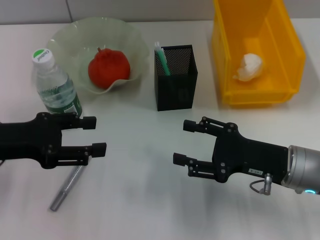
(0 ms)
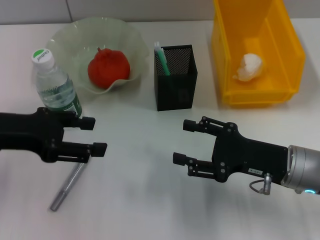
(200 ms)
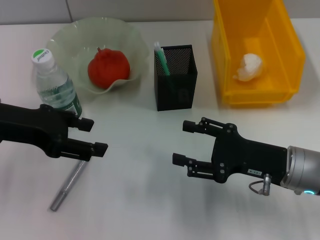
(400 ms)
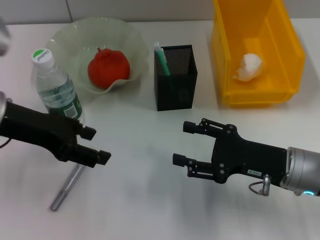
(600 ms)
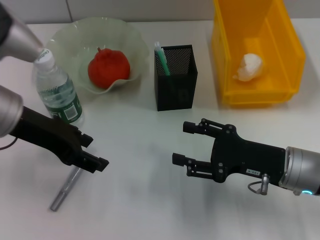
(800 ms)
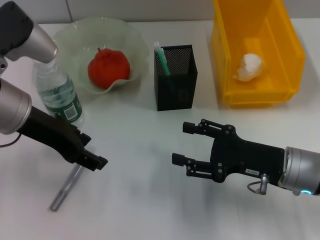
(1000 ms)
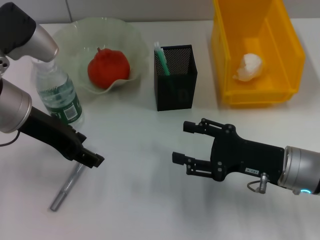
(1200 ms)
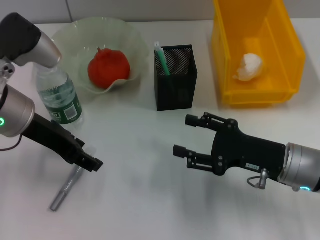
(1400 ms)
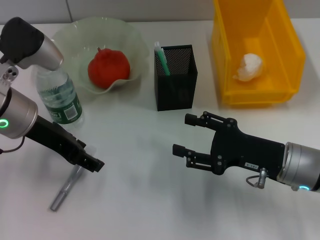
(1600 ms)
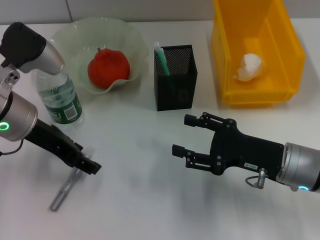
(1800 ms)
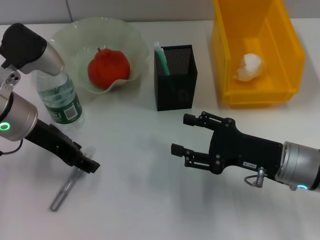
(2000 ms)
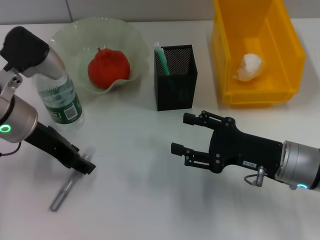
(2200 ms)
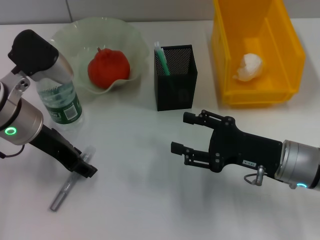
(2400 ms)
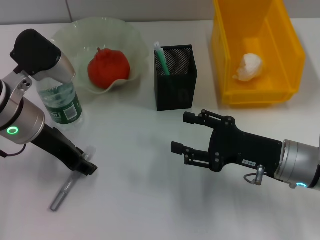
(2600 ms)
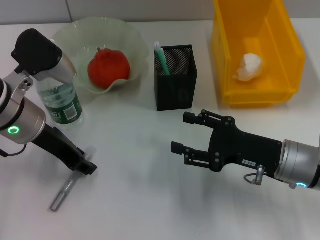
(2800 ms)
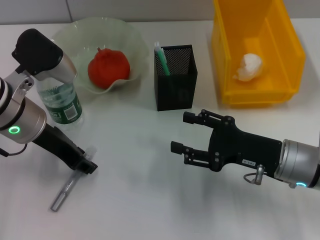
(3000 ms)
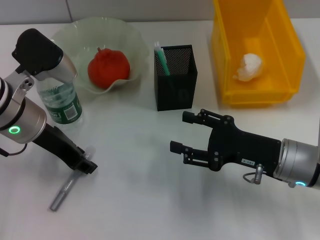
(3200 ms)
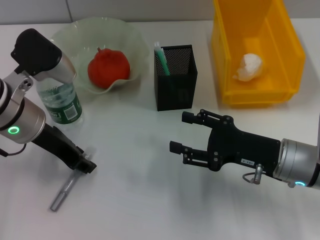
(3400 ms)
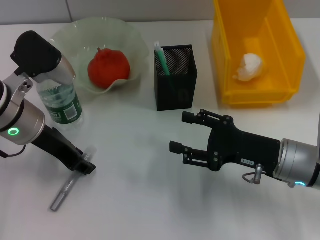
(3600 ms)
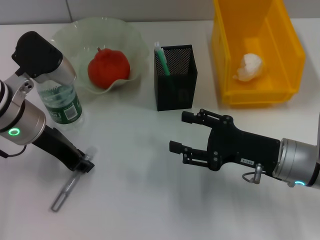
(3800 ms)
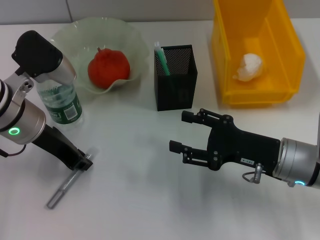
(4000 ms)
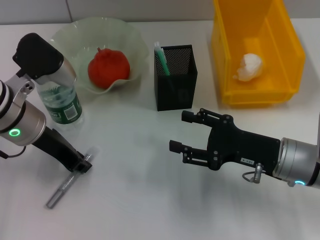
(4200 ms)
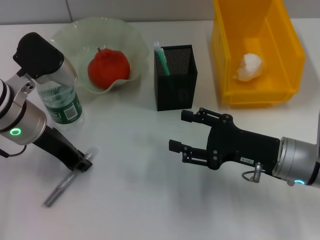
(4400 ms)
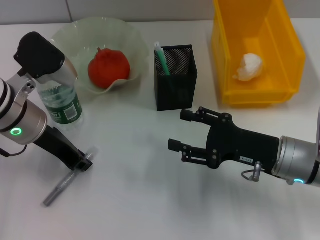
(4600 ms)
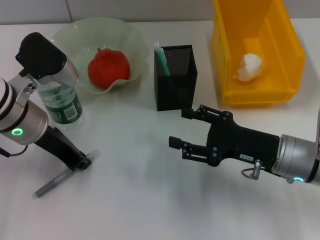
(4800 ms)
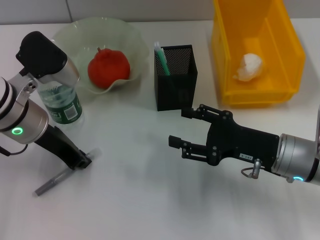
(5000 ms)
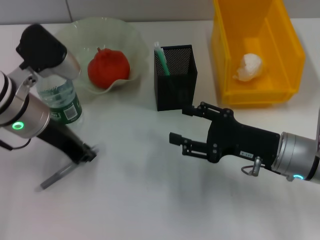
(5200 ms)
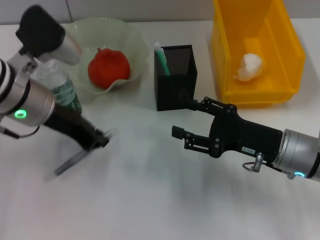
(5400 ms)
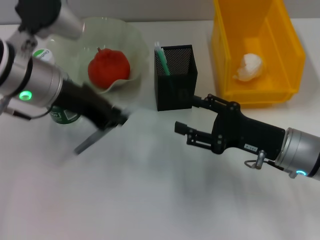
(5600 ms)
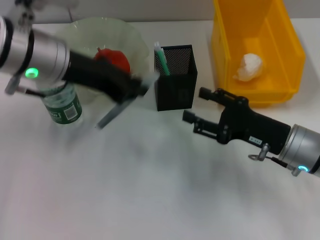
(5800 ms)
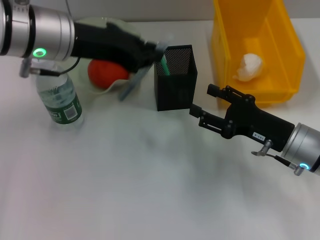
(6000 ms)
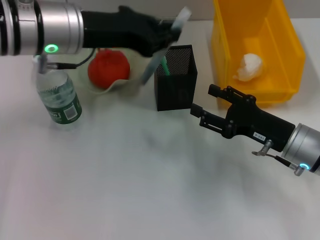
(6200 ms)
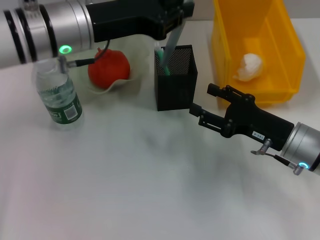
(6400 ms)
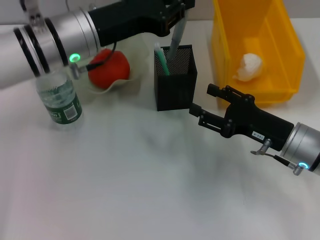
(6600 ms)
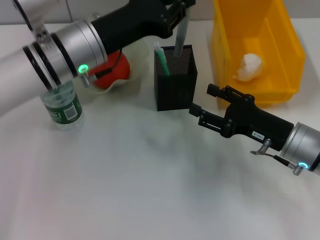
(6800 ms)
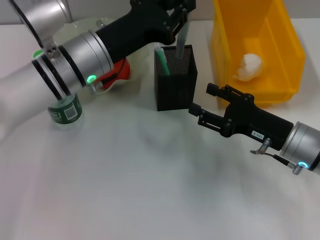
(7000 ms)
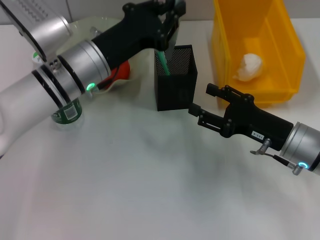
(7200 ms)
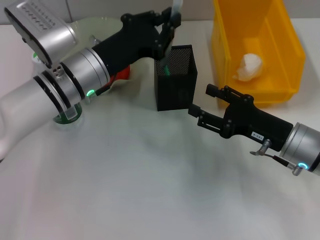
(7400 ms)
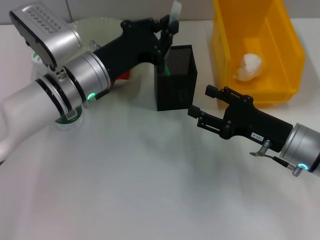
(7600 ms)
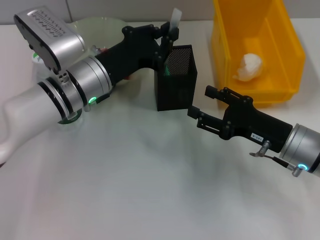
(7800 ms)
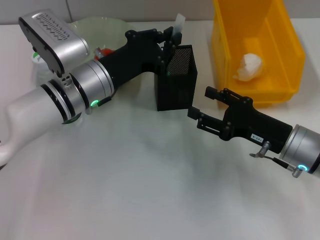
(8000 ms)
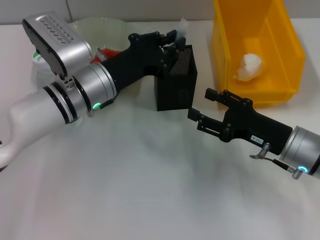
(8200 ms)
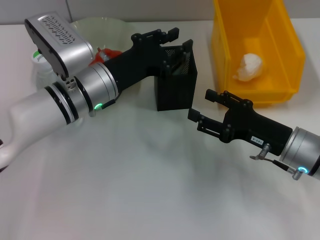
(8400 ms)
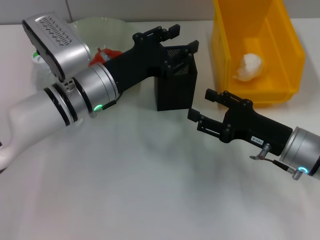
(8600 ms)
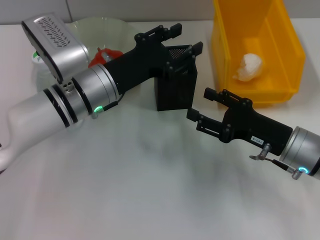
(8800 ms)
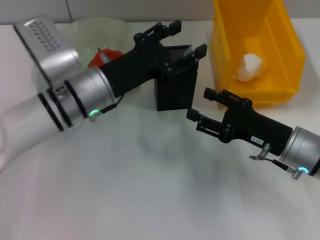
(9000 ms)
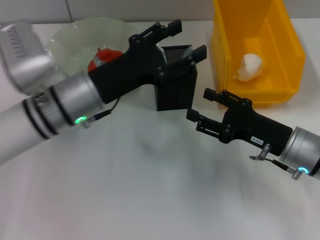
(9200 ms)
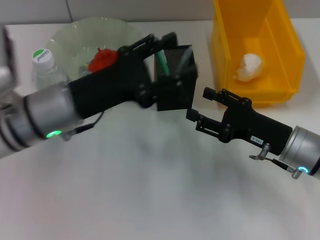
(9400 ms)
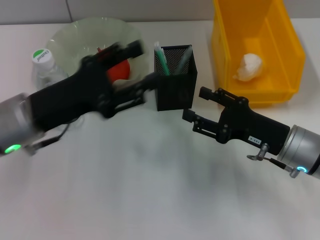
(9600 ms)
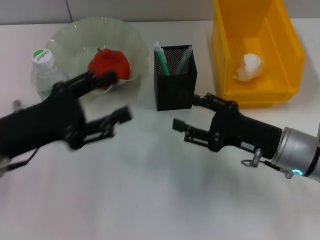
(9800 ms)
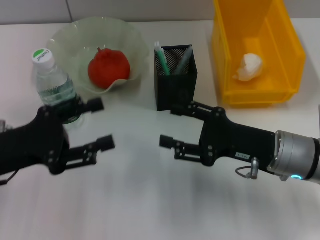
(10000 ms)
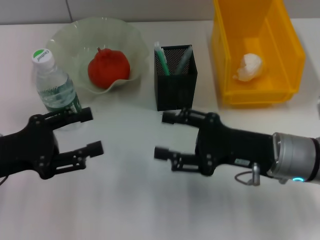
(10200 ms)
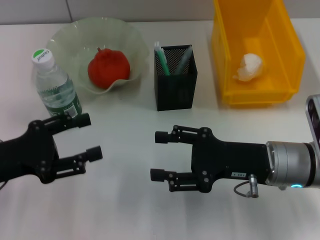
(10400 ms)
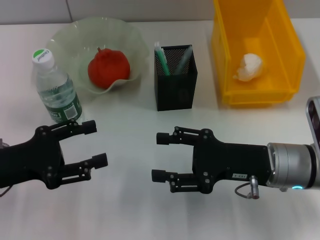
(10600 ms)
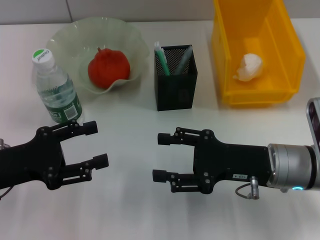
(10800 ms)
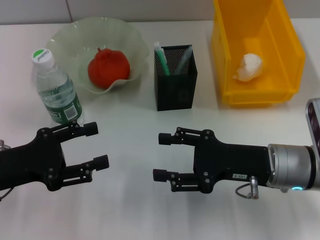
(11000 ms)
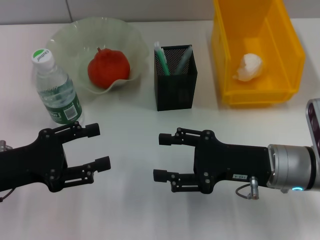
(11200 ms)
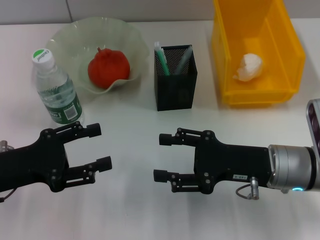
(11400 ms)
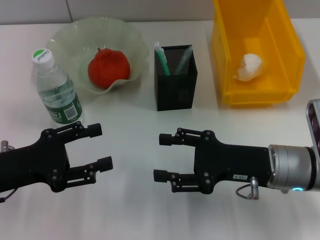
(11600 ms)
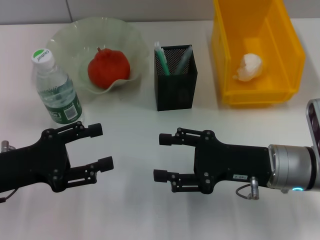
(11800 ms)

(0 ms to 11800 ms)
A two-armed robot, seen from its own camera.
Step, 0 ms - 4800 ms: Grab the gray glue with the left hand.
Step, 5000 ms - 8600 ms: Place the gray glue into the pen holder with the left hand.
0 ms - 1400 ms: The left gripper shifts some 10 cm to the right and forward.
1400 ms - 3000 ms: The grippers move only a little.
3000 ms - 4400 ms: The left gripper closes up.
4400 ms - 6000 ms: The left gripper goes about 10 cm upward.
6000 ms - 7400 ms: The left gripper moves downward, roughly 10 cm.
7400 ms - 8800 ms: The left gripper opens its fingers.
8800 ms - 10400 ms: The left gripper shifts about 20 cm to the left and backward, and opens up.
10400 ms - 11800 ms: Both grippers stay about where they are.

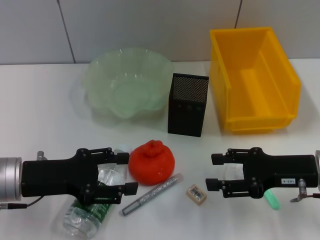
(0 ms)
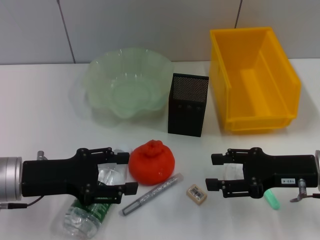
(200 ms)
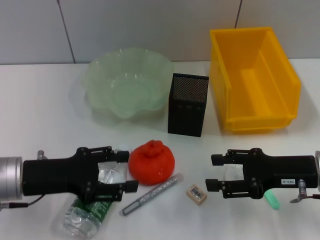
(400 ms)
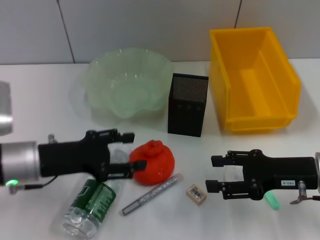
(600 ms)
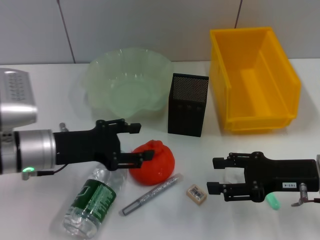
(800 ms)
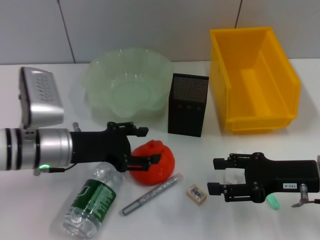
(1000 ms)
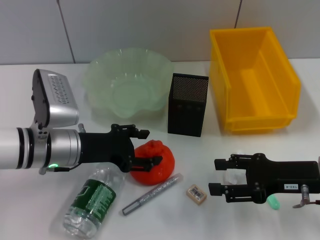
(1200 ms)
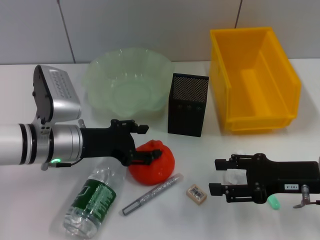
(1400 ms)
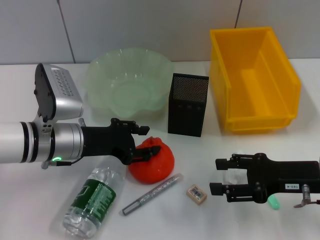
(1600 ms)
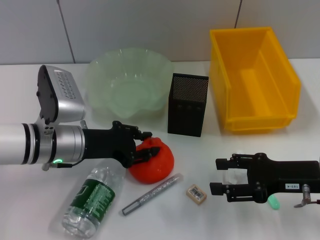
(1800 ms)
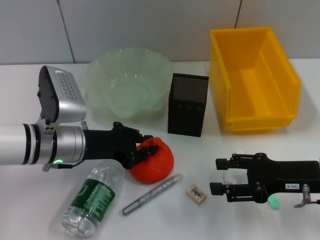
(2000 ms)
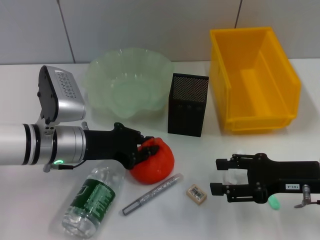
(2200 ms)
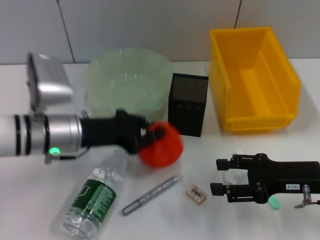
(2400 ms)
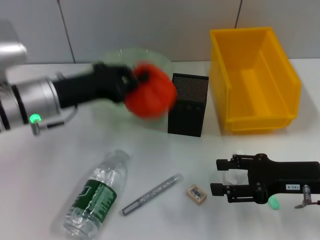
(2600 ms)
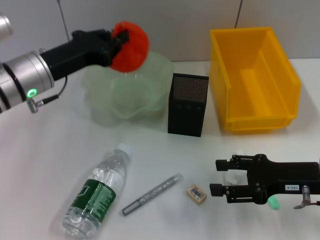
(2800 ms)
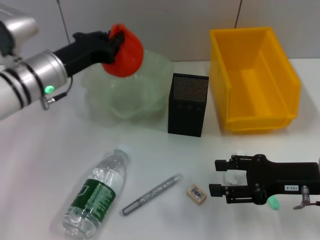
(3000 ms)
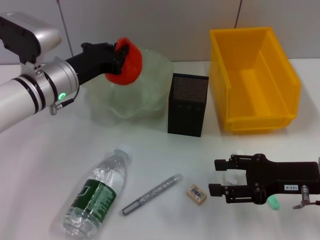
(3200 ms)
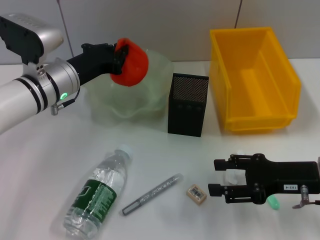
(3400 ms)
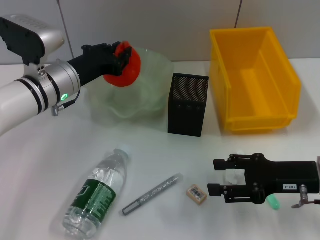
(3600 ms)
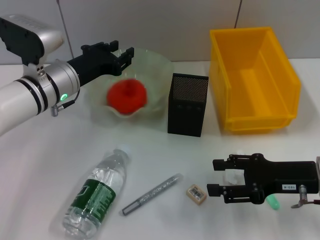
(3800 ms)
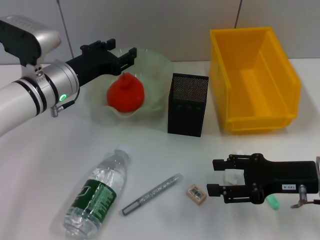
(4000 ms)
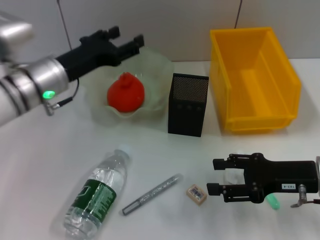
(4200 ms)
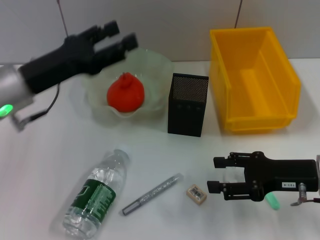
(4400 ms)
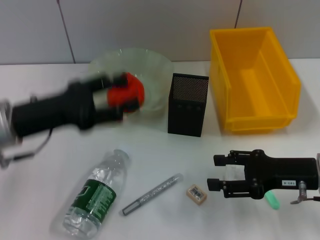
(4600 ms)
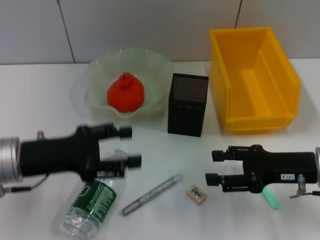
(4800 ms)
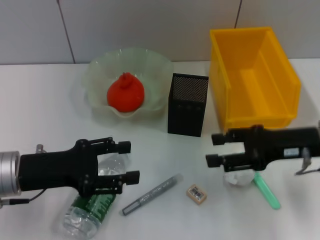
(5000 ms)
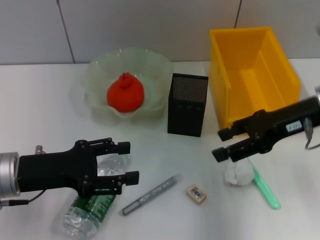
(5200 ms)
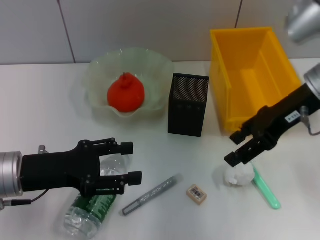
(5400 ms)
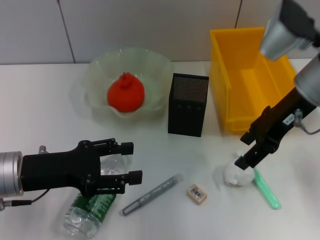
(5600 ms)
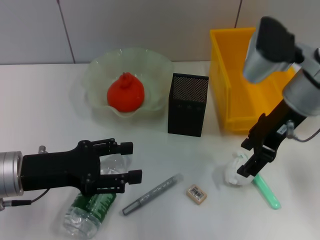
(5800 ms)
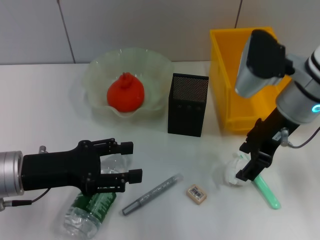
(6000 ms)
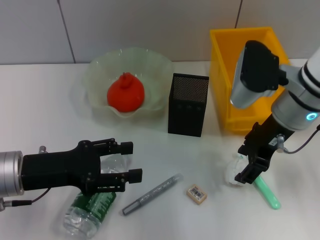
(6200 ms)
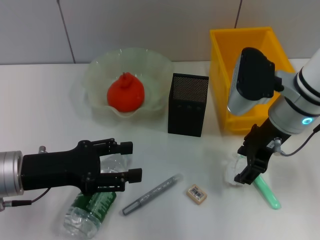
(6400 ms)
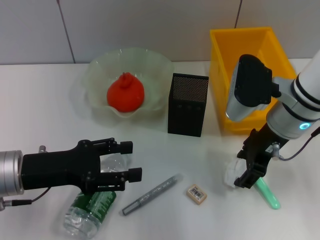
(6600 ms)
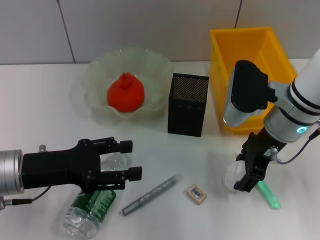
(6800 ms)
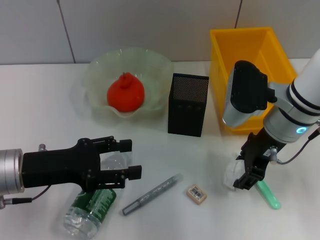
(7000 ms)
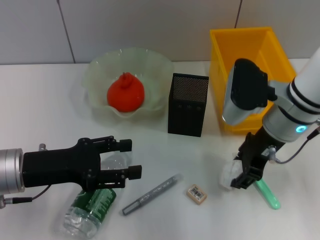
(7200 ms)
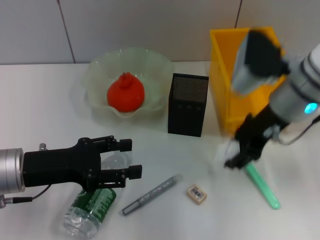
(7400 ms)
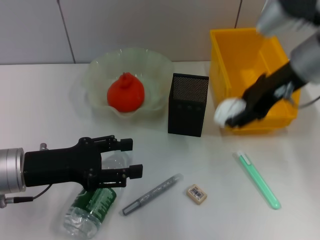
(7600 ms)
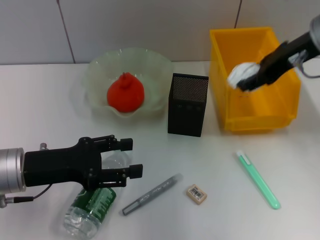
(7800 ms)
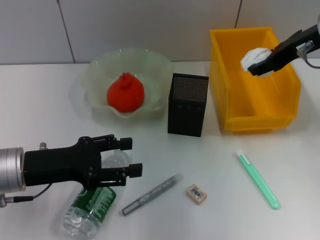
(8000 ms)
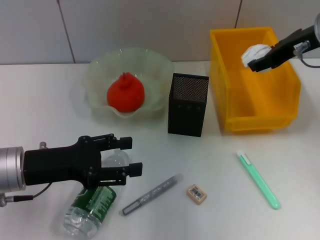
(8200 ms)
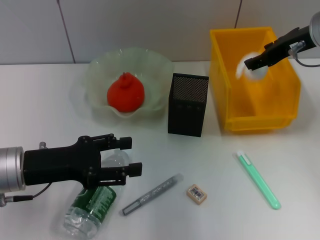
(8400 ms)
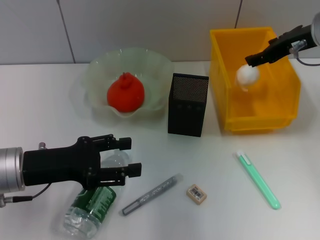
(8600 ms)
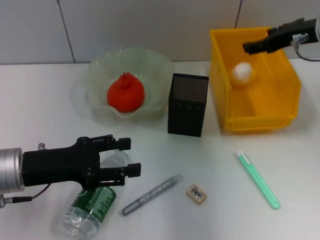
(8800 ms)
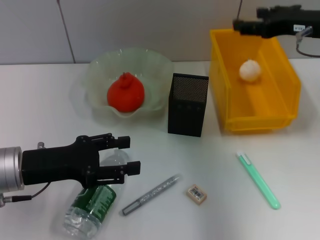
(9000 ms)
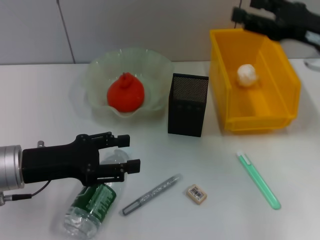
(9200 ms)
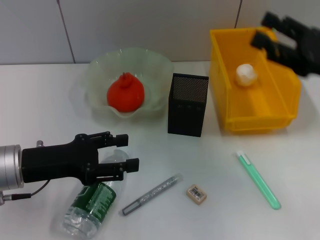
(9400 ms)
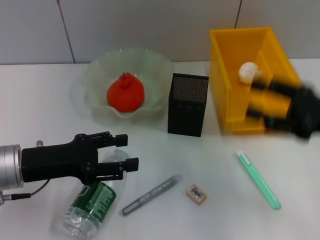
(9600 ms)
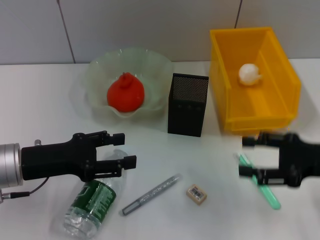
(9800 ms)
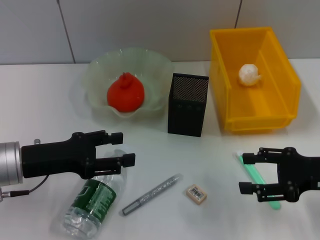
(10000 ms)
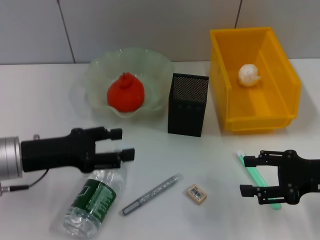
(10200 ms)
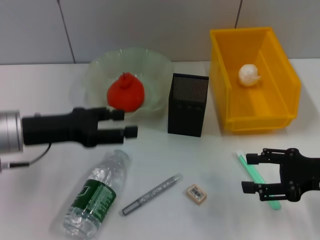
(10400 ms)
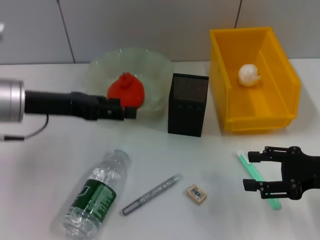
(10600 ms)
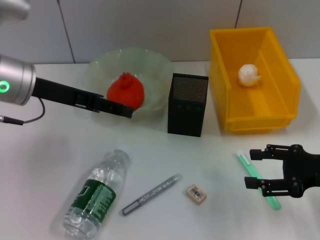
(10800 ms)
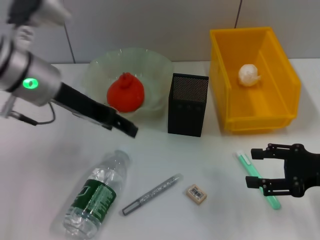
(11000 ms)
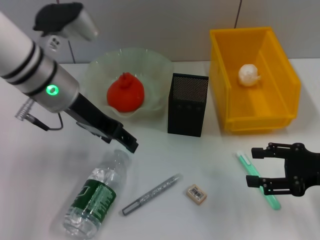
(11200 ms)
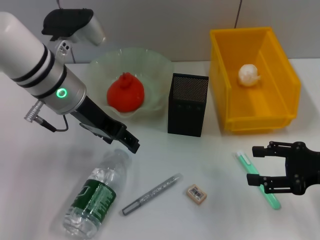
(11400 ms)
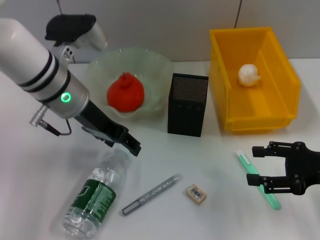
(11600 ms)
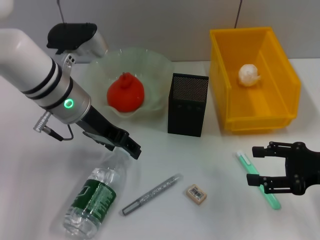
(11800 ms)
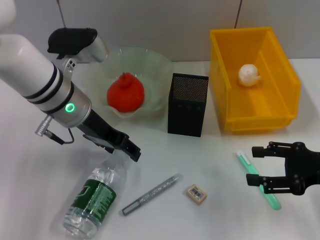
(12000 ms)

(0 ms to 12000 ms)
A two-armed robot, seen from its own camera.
Step, 0 ms - 1800 ms: Grab the orange with the left hand.
Step, 2200 ms - 4400 ms: Place the orange into the fruit bowl with the left hand.
Step, 4600 ms - 7000 ms: Grab the paper ball with the right hand.
Step, 7200 ms - 9000 ms: Place the paper ball into the trash can with the right hand.
0 ms - 1600 ms: The left gripper heads forward and to the right, covering about 10 cm.
1600 ms - 3000 ms: The left gripper moves forward and upward, roughly 10 cm, and closes its fingers.
3000 ms - 4400 ms: The left gripper heads backward, covering about 5 cm, and opens its fingers.
4400 ms - 6000 ms: The left gripper shifts about 10 cm backward and downward; the right gripper is displaced upward, forward and to the left by roughly 15 cm.
6000 ms - 7600 ms: The right gripper heads upward, covering roughly 5 cm.
7600 ms - 9000 ms: The right gripper shifts roughly 5 cm to the right, and opens its fingers.
9000 ms - 10400 ms: The right gripper is displaced backward and downward by about 20 cm.
10400 ms - 12000 ms: The left gripper moves to the right and forward, some 10 cm.
